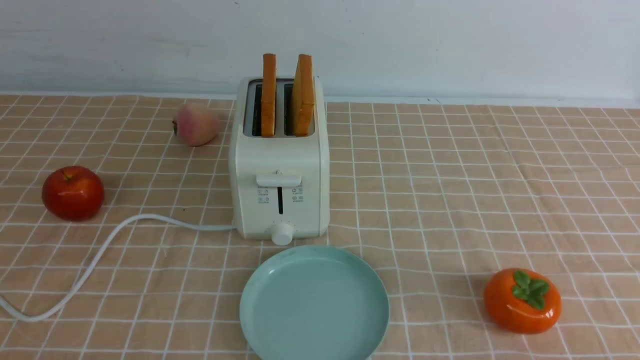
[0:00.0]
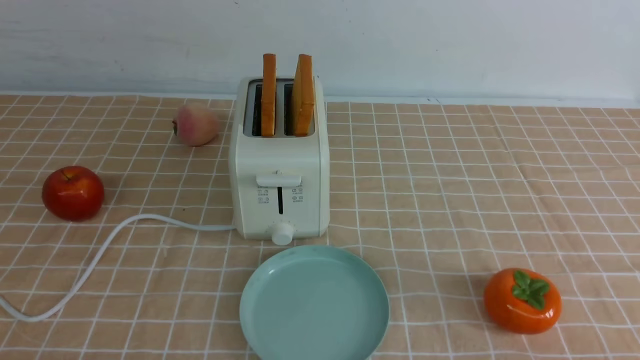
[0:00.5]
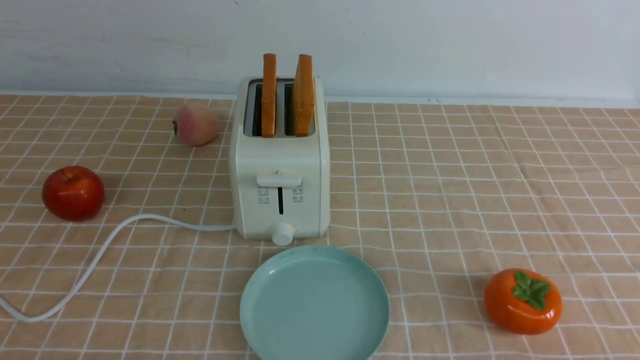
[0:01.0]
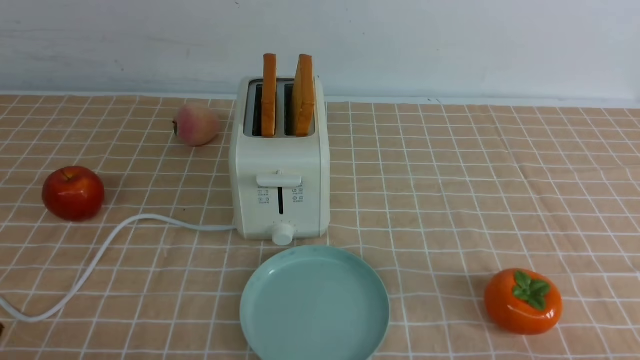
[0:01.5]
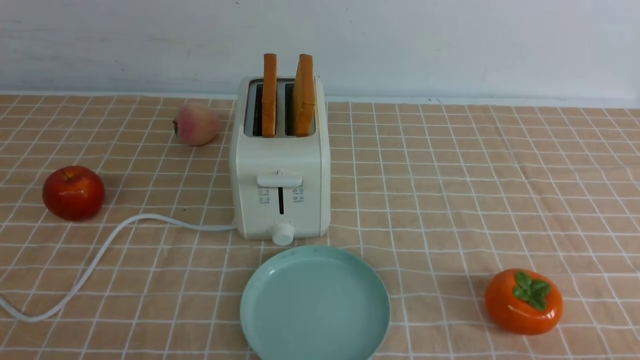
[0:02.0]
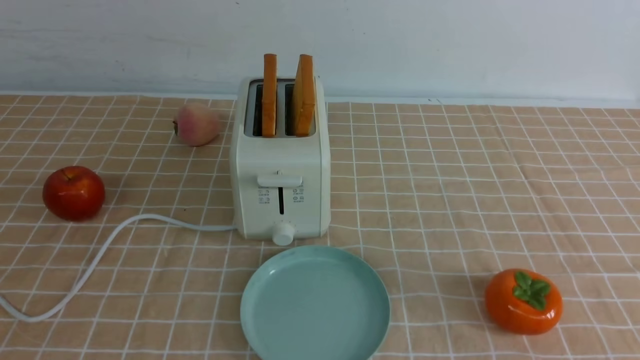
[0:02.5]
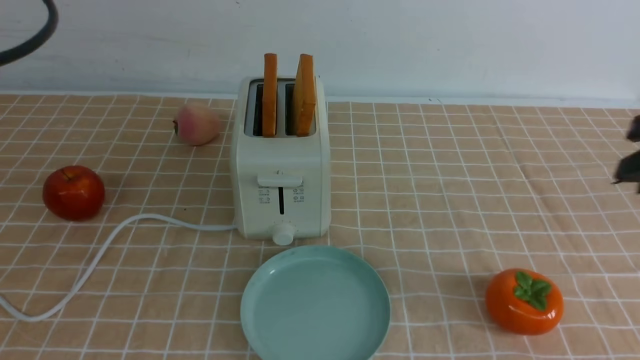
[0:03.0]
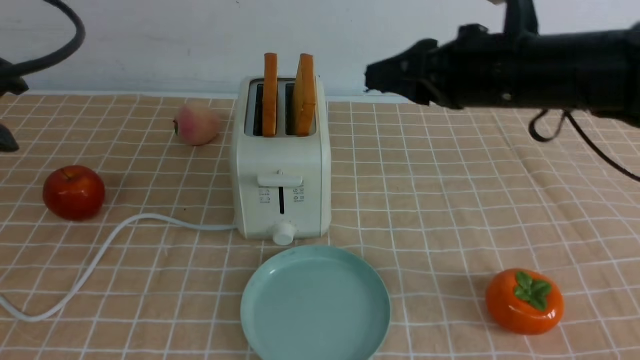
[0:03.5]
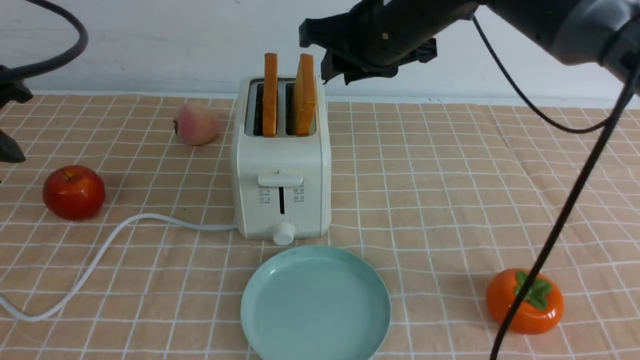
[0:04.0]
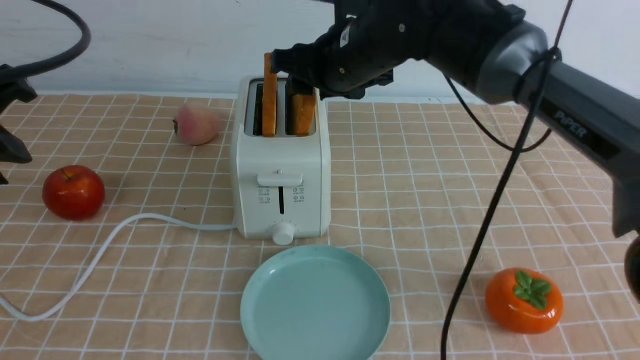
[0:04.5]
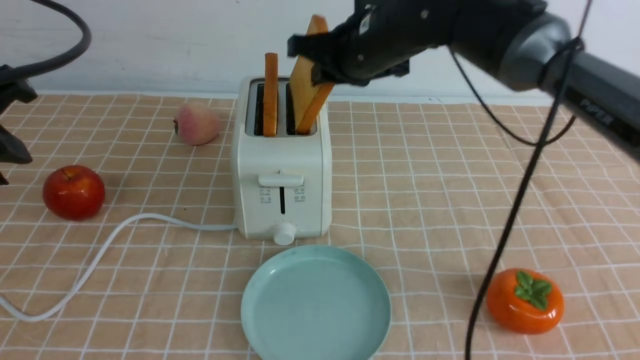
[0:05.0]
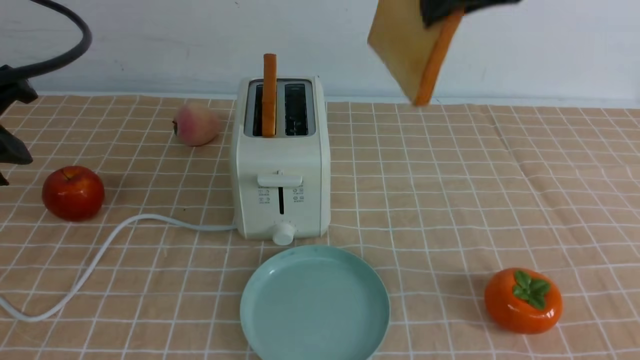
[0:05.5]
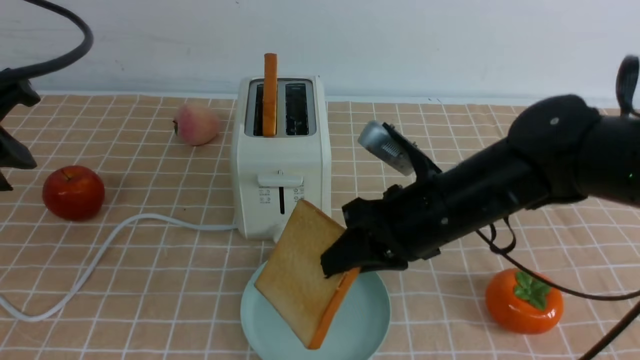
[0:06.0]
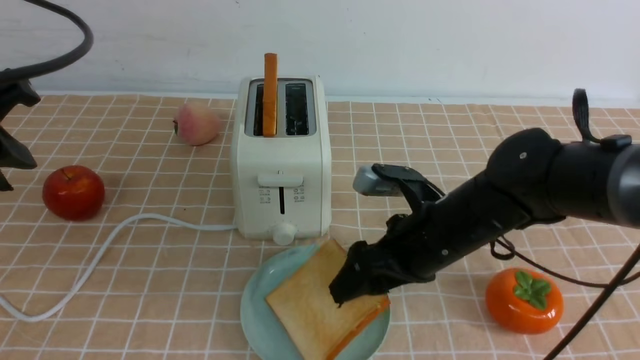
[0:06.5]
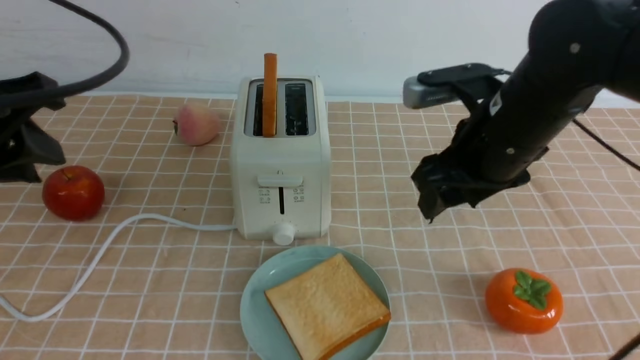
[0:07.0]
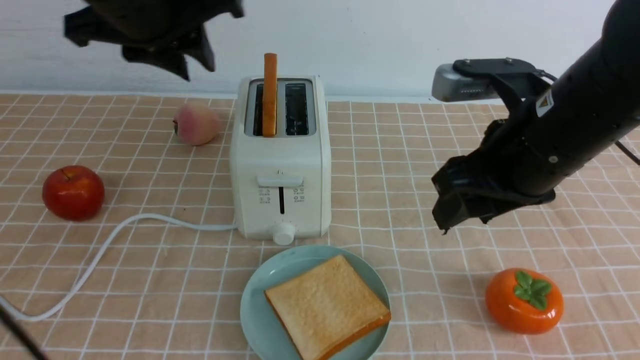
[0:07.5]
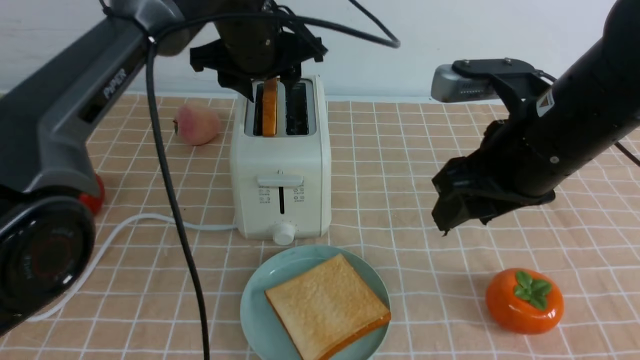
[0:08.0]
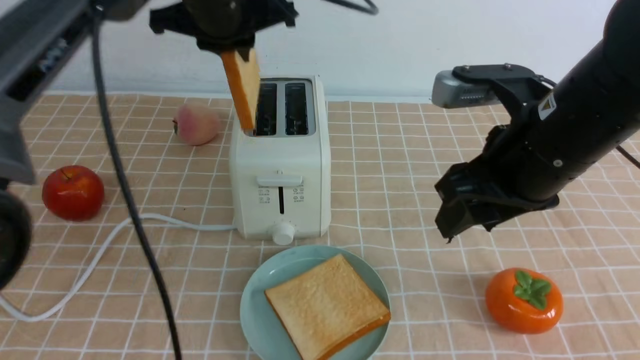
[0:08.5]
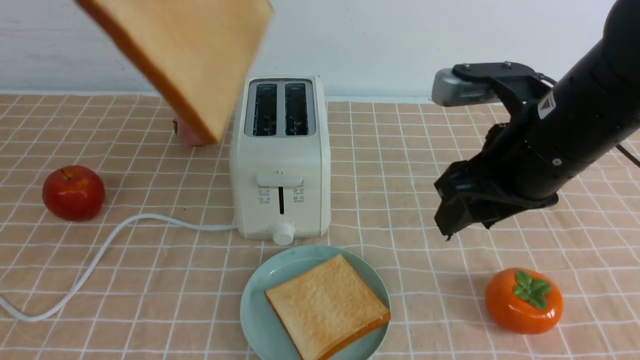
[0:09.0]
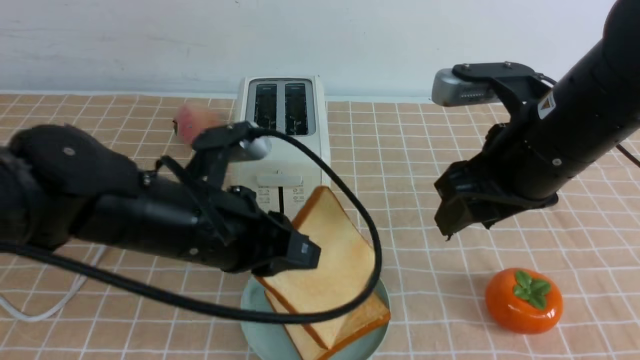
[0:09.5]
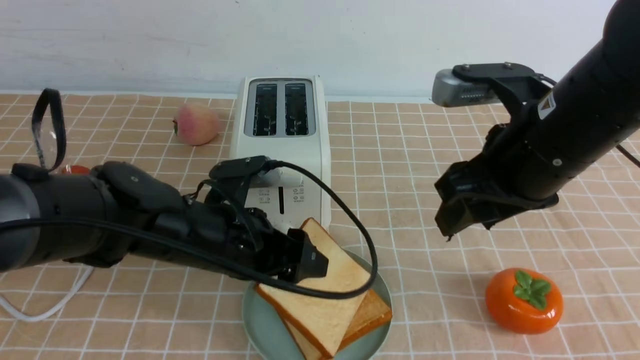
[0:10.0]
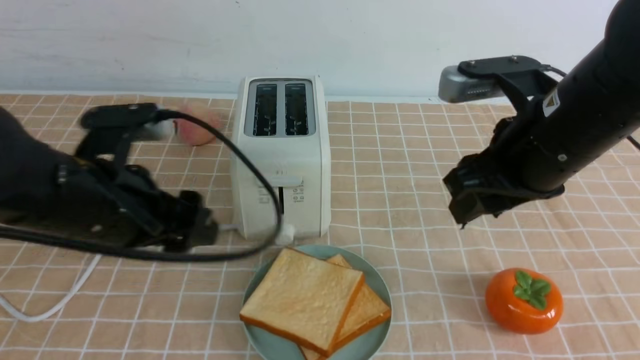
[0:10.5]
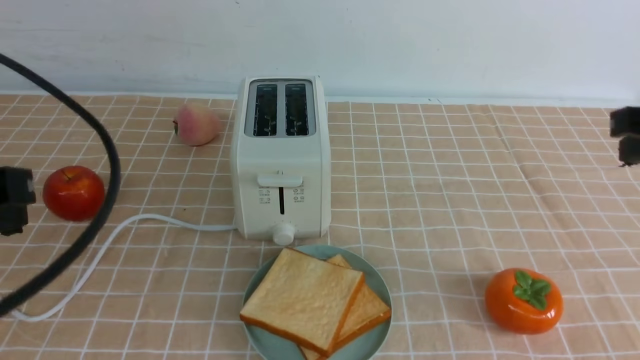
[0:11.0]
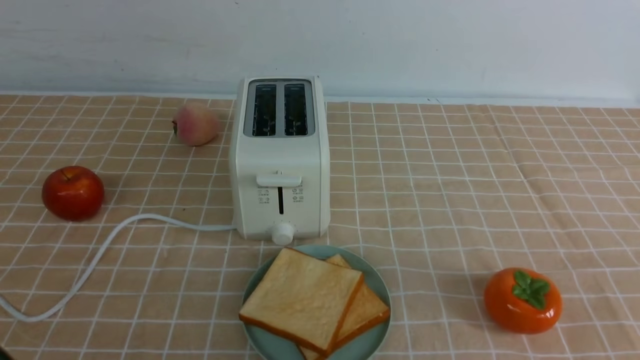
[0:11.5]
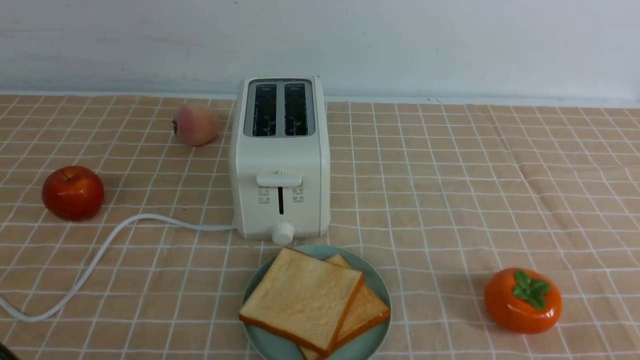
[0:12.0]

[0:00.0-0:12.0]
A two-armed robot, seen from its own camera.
Task of the whole recording: take toasted bread from bread machine on light coffee tablecloth place on plate.
Step, 0:00.0 to 0:05.0: use the right arm to take out a slice of bread.
Step, 0:05.5 to 0:06.5: use the right arm to put a slice of bread into the plate.
Step, 0:07.0 to 0:08.0: use the left arm to take out a slice of bread.
Step, 0:08.5 to 0:10.0: use the left arm to put a slice of bread into the empty plate.
0:02.0 to 0:04.0: The left gripper heads forward and upward, covering about 20 cm. Meanwhile the right gripper goes approximately 40 cm forward and to the left.
0:04.0 to 0:06.0: The right gripper swings up and down, about 20 cm each way, with 2 reversals.
0:06.0 to 0:08.0: The left gripper is displaced forward and to the right by some 30 cm. Meanwhile the right gripper goes roughly 10 cm upward and to the right, and opens up.
0:08.0 to 0:10.0: The left gripper heads backward and downward, covering approximately 20 cm, and closes, then reopens.
0:10.0 to 0:12.0: The left gripper heads backward and to the left, covering roughly 25 cm, and closes. The right gripper heads backward, to the right and downward, covering some 25 cm, and closes.

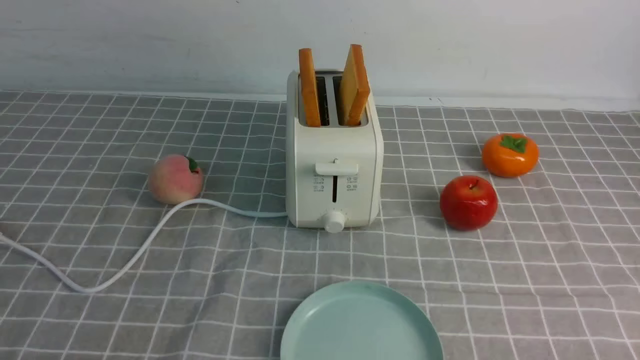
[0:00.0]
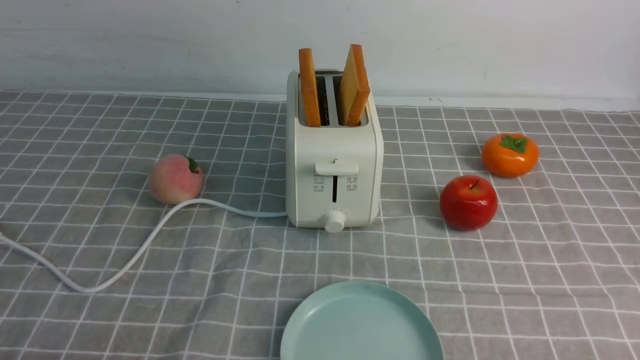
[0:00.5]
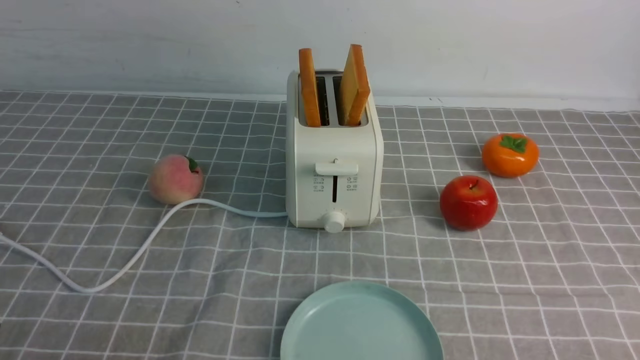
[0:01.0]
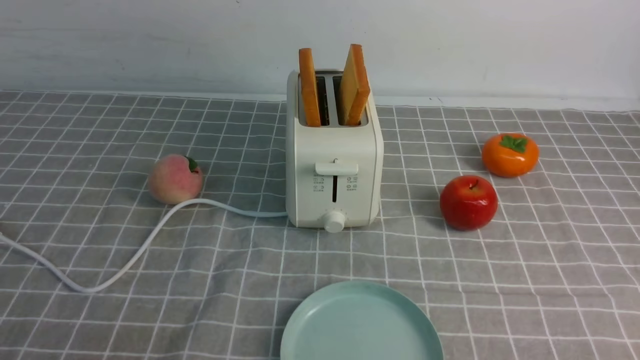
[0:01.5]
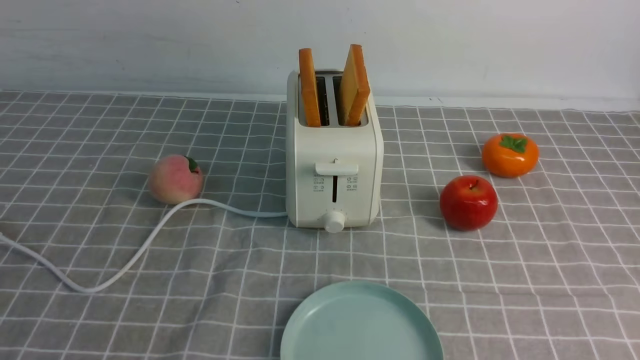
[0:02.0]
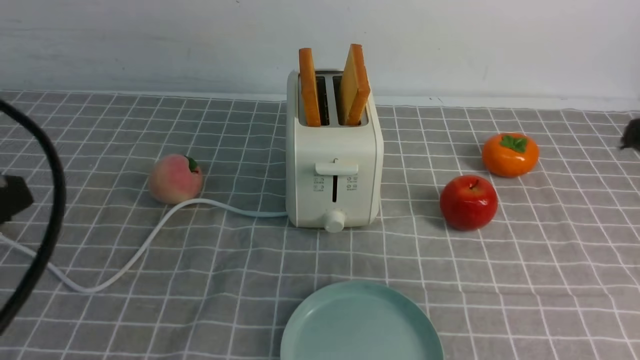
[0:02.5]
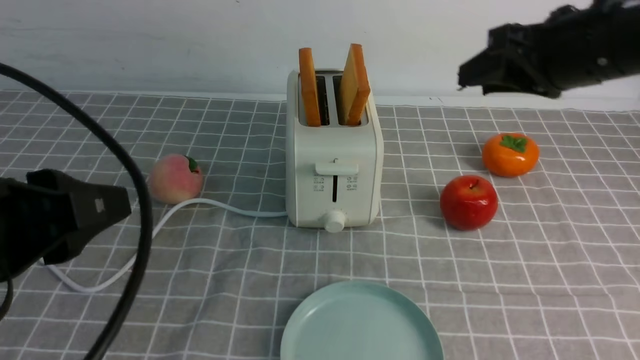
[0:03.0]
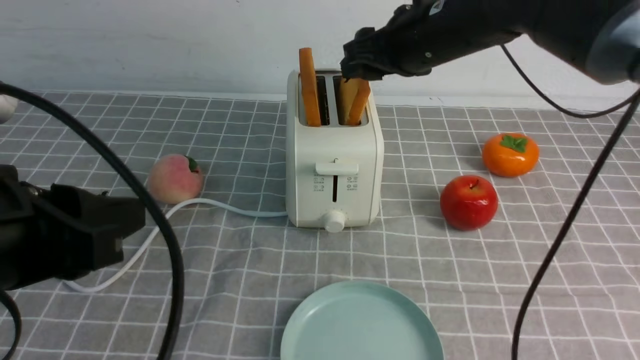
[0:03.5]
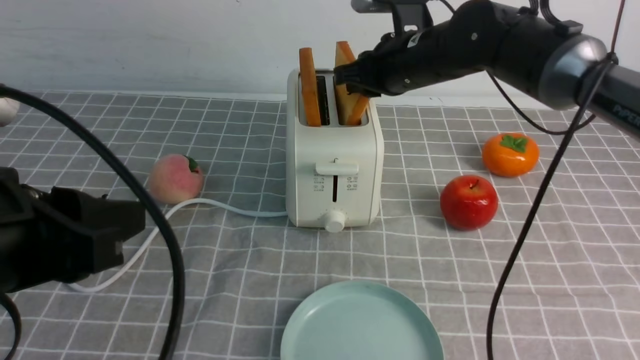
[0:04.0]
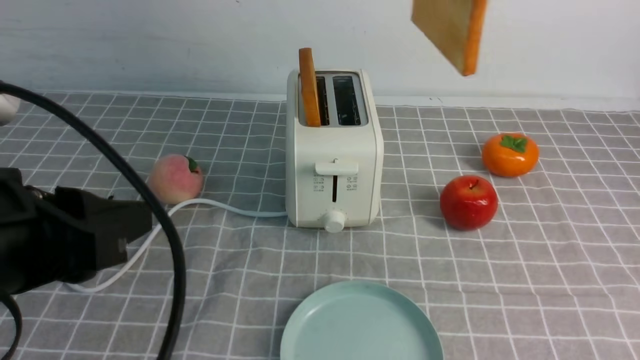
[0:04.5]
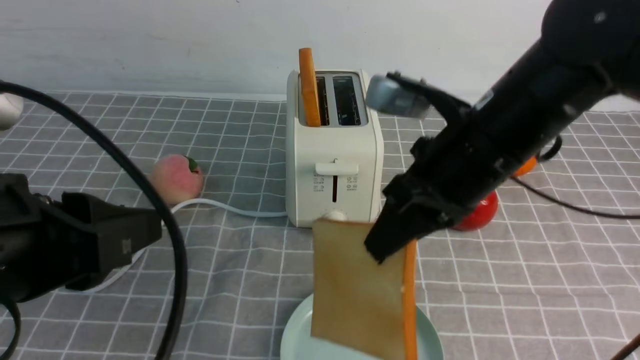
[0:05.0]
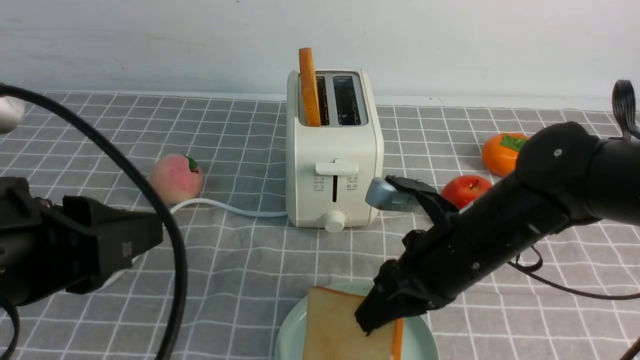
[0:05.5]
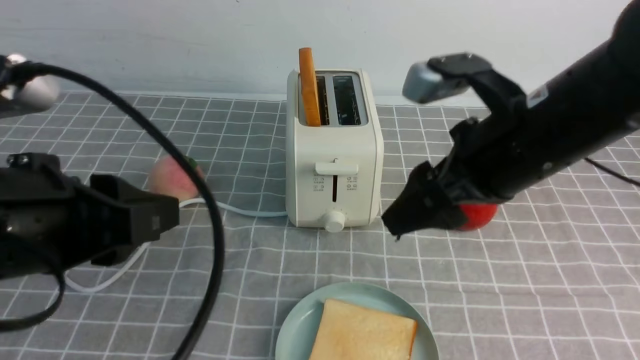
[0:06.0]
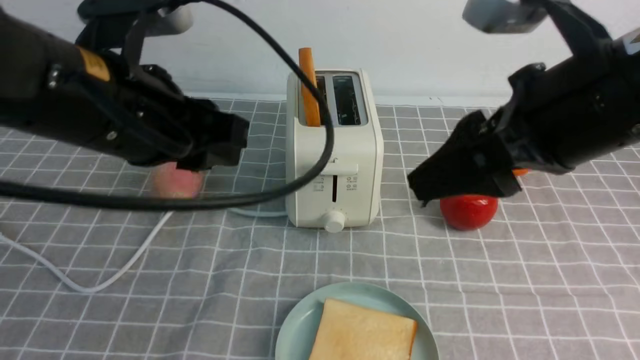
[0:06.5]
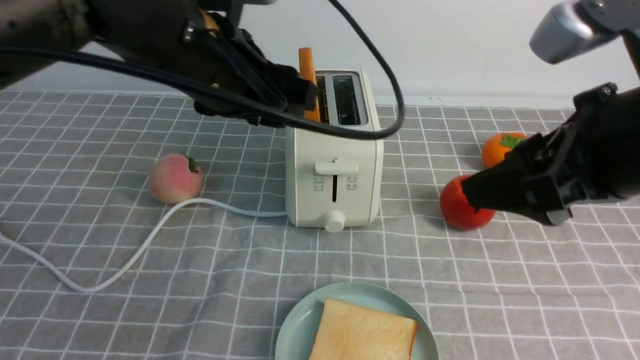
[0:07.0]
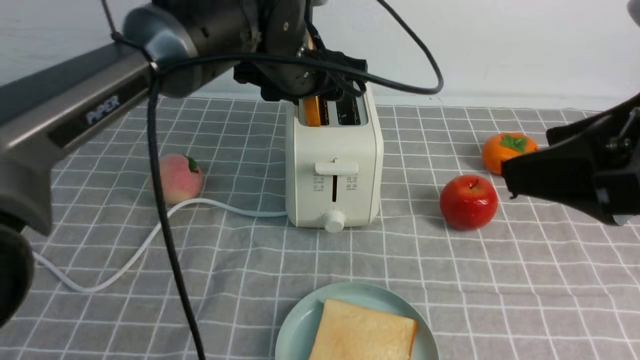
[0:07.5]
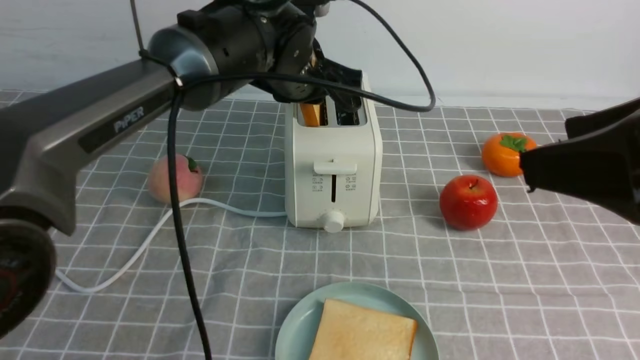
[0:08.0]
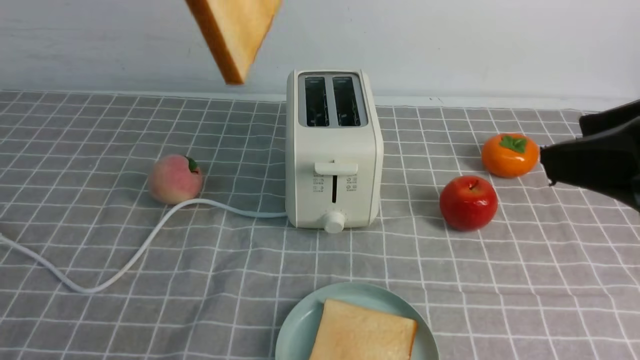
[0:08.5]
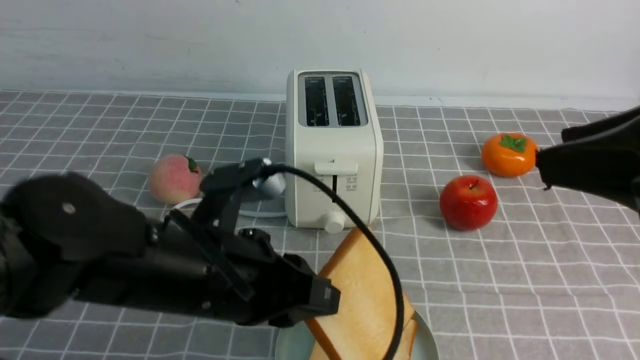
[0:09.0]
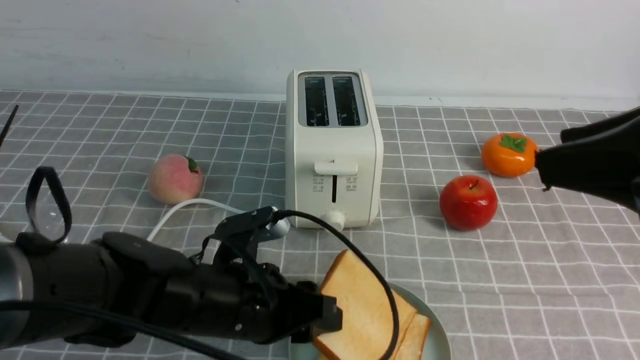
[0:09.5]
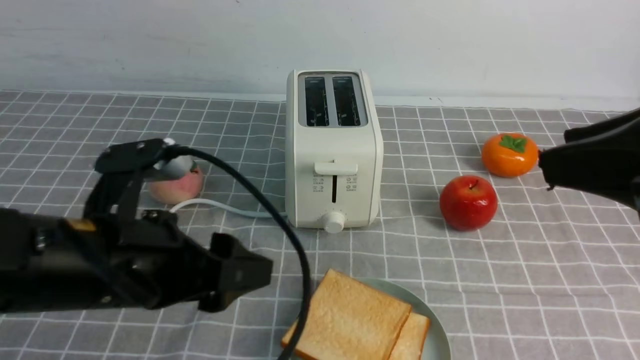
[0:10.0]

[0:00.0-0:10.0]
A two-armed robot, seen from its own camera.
Task of the whole recording: take toasted bread from bread machine on grey coffee table place on plate.
Step, 0:00.0 to 0:04.0: use the right arm to take out a slice of bread.
Step, 0:04.5 to 0:06.0: use the right arm to put a slice of bread into the plate.
Step, 0:06.5 to 0:08.0: use the left arm to take out a slice of bread.
Step, 0:08.5 to 0:09.5: use the left arm to put a slice of bread into the empty plate.
0:02.0 to 0:04.0: The left gripper heads forward and to the right, covering roughly 10 cm. The right gripper is displaced forward and to the left by about 40 cm, and opens and closes again.
0:04.0 to 0:06.0: The right gripper swings up and down, some 20 cm each way, with 2 reversals, and opens.
0:06.0 to 0:08.0: The left gripper travels forward and to the right by roughly 30 cm, and opens and closes again, while the right gripper goes approximately 15 cm backward, upward and to the right.
0:08.0 to 0:10.0: The left gripper goes up and down, approximately 30 cm each way, reversing 2 times, and opens. The right gripper closes up.
